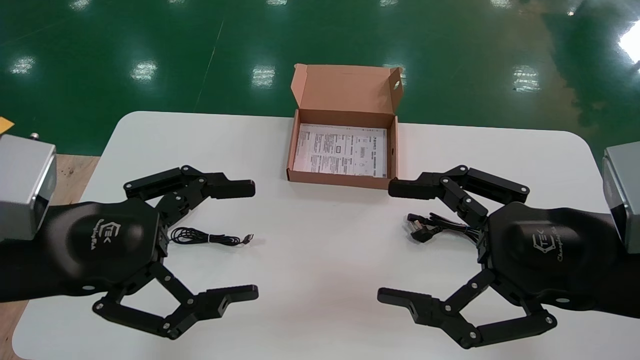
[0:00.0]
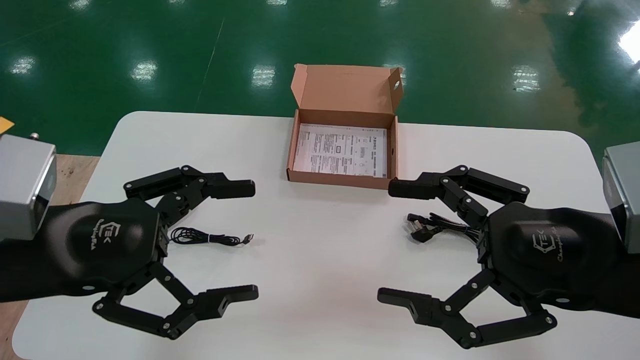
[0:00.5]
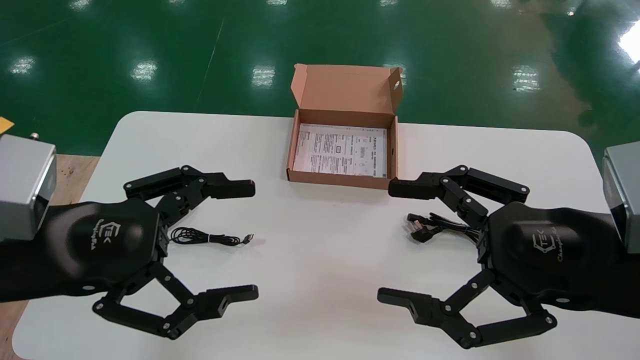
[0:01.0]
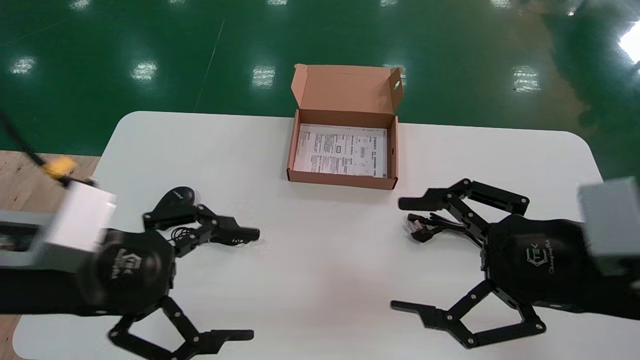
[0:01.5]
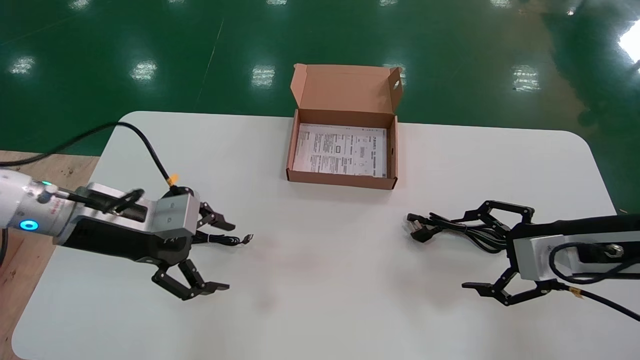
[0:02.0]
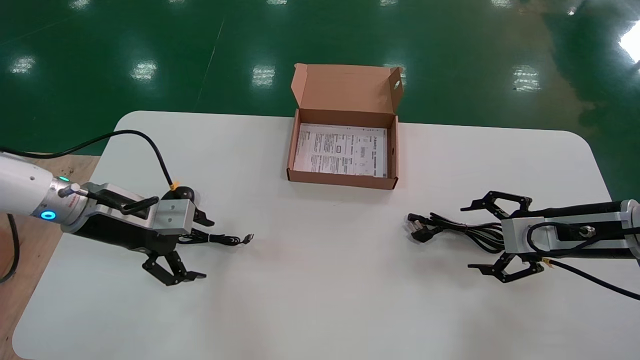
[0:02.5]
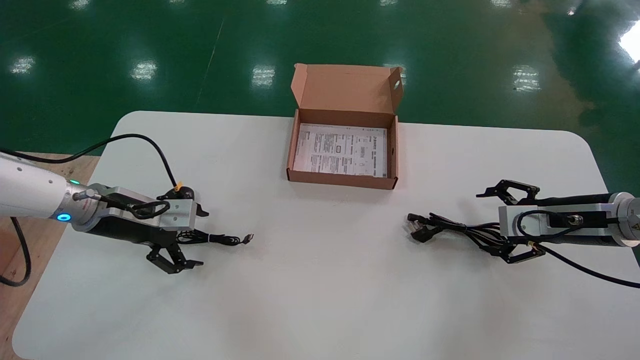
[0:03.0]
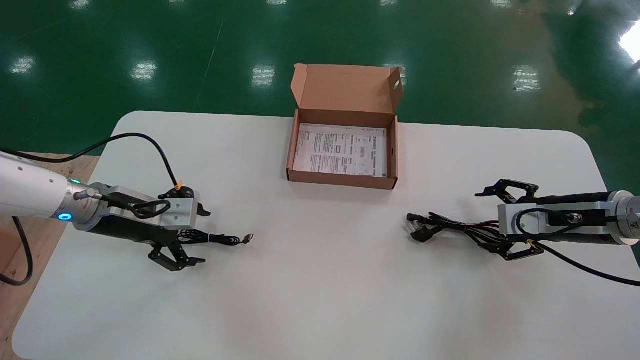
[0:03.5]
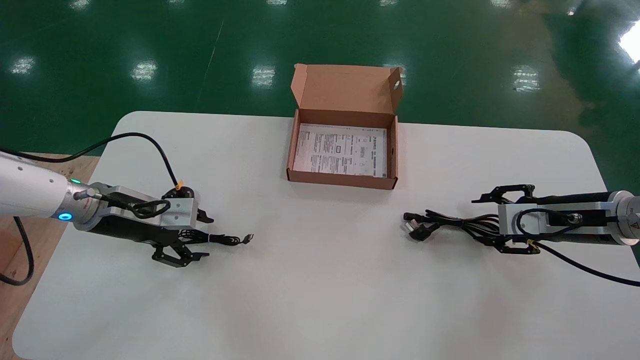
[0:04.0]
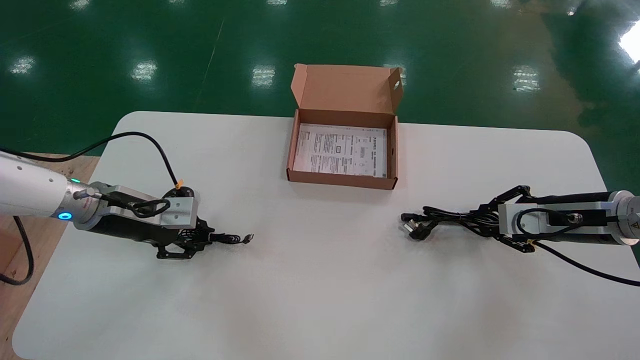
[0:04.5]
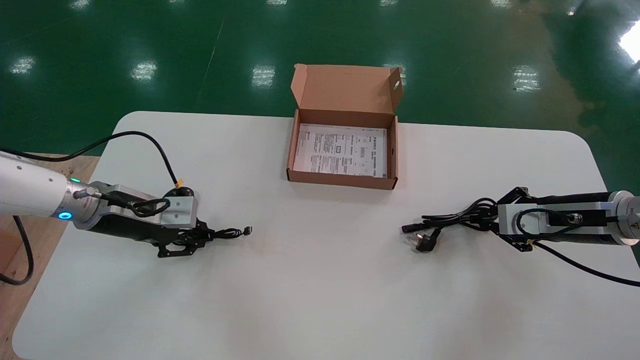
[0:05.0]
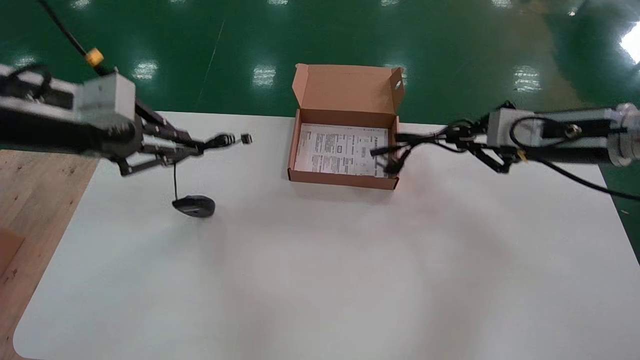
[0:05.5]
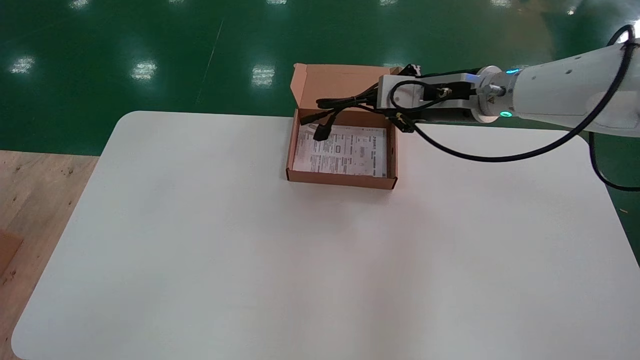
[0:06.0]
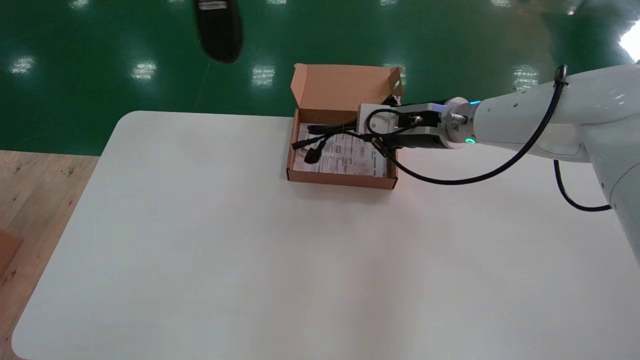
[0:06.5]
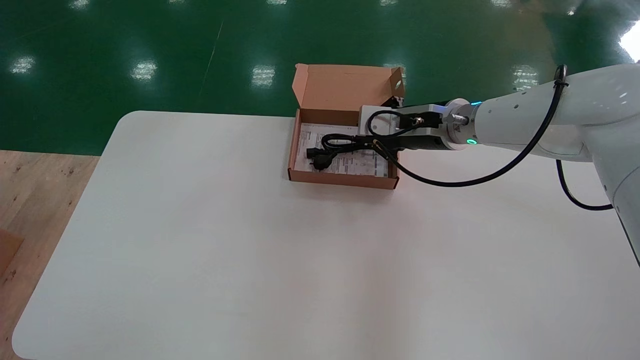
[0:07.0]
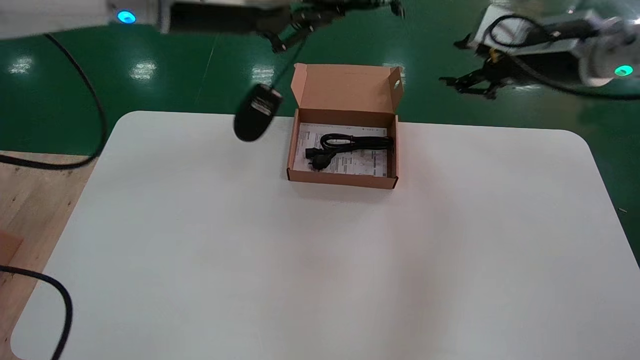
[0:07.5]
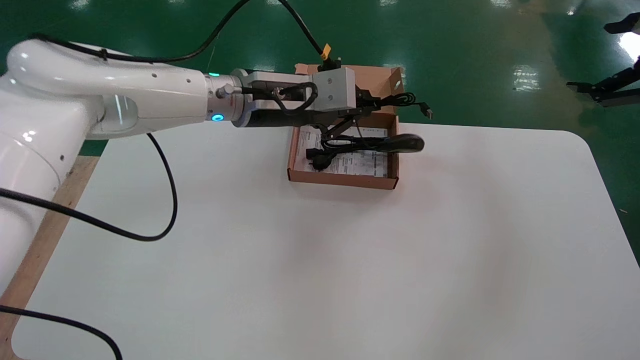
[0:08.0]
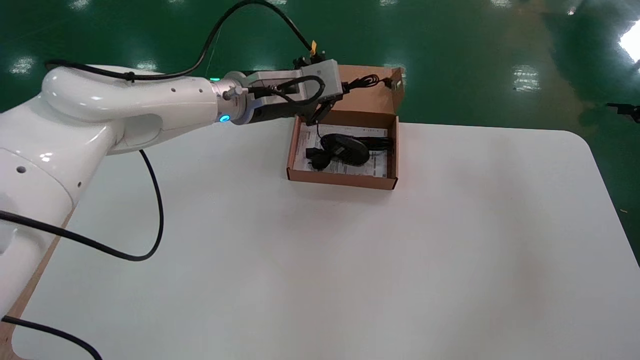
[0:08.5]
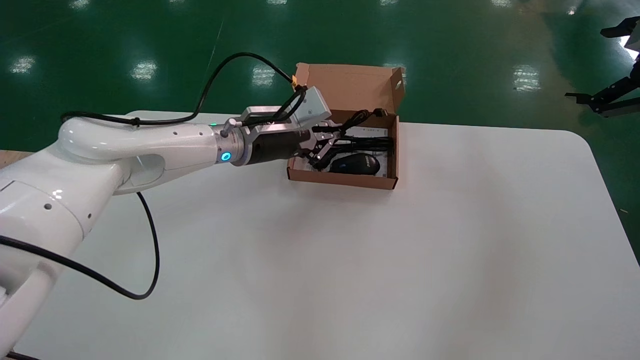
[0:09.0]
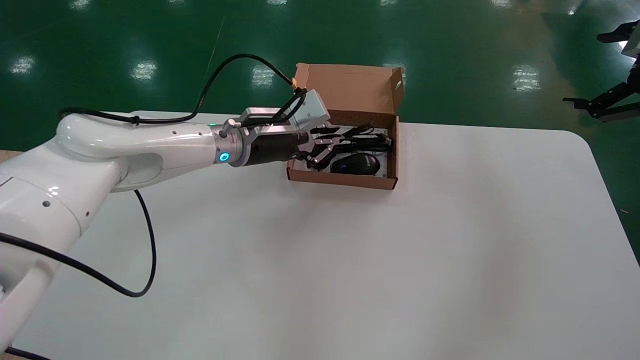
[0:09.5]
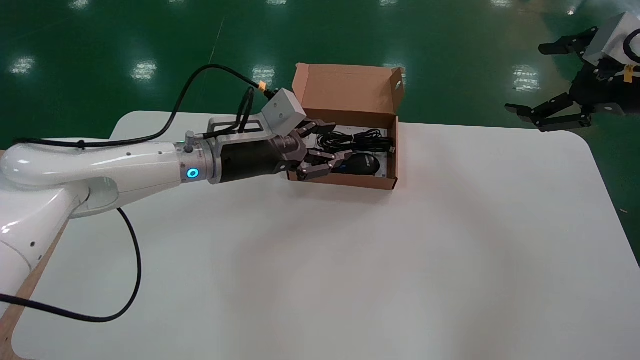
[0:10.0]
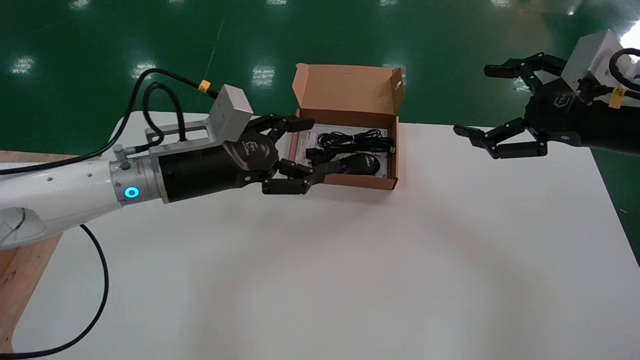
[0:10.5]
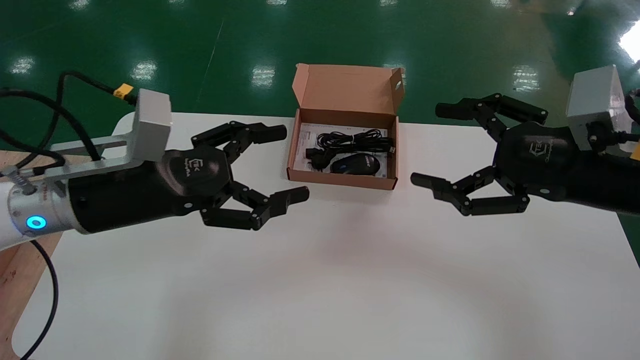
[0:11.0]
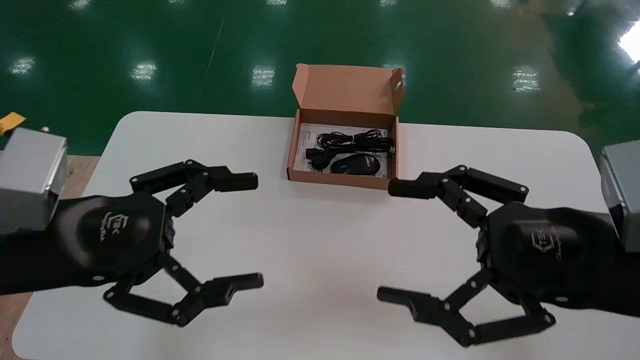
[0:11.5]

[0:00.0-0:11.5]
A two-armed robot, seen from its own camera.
Step, 0:02.0 to 0:04.5: Simultaneously pick up the mouse and power cord from the accessory packaging area.
Step, 0:05.0 to 0:10.0: Place the mouse and power cord into the box.
0:00.0 to 0:02.0: The left gripper moves forward, some 15 cm. Meanwhile the right gripper heads forward and to the right, covering some 15 cm.
0:02.0 to 0:04.0: Both grippers travel together forward, about 10 cm.
0:04.0 to 0:06.0: The right gripper heads to the left and upward, covering roughly 25 cm, and closes its fingers; the left gripper travels upward by some 35 cm, and closes up.
0:06.0 to 0:07.5: The right gripper shifts some 10 cm to the right and upward, and opens its fingers. The left gripper is displaced to the right, downward and forward by roughly 15 cm.
0:07.5 to 0:09.5: The right gripper shifts about 15 cm to the right and backward, and opens up; the left gripper heads downward and forward, covering about 20 cm.
0:09.5 to 0:11.5: The right gripper goes about 25 cm to the left, backward and downward. Meanwhile the left gripper is displaced backward and to the left by roughly 30 cm, and opens.

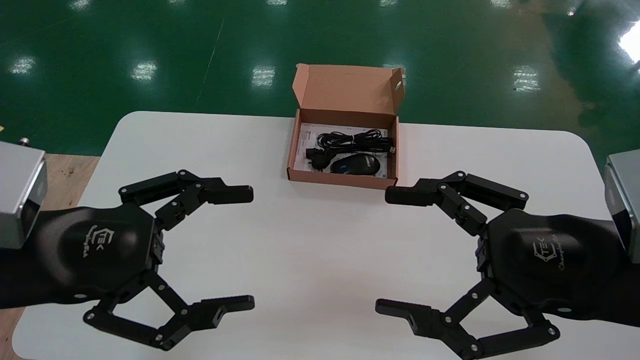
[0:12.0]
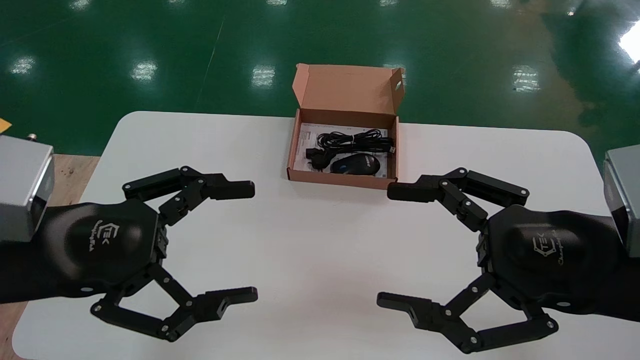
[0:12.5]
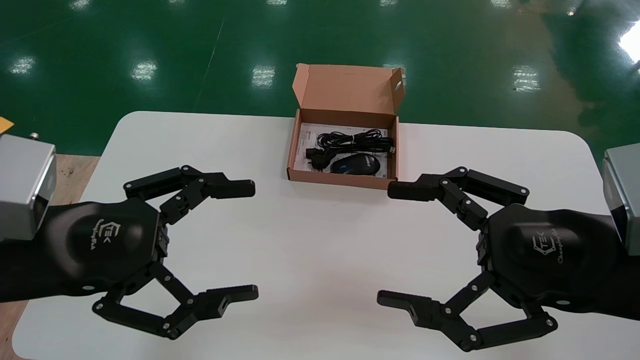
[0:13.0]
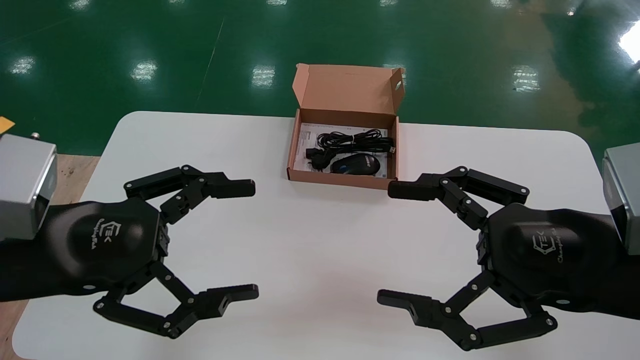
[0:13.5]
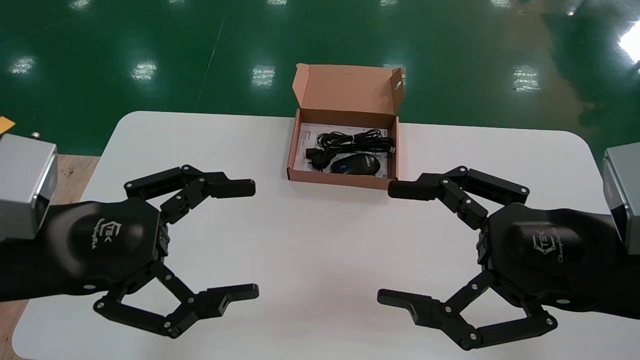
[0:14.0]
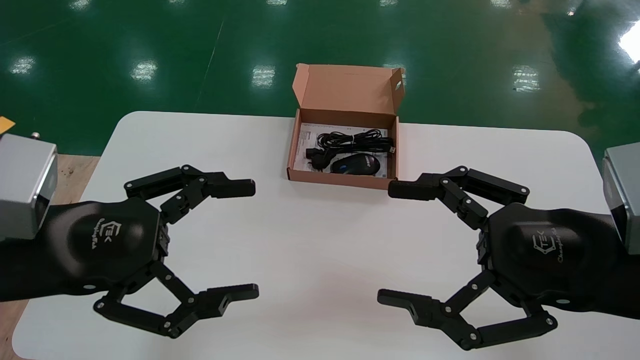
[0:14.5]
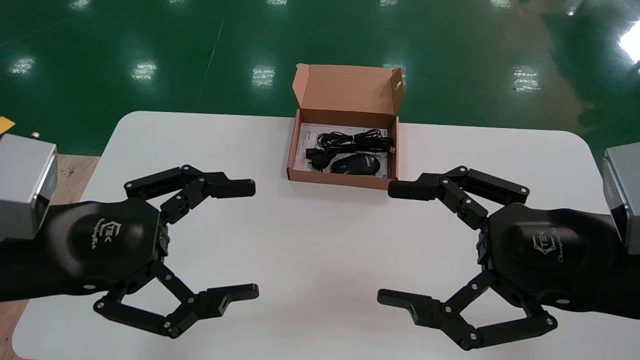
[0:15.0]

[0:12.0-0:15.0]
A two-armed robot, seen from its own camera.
0:12.0 to 0:15.0: The two grippers keep their place.
